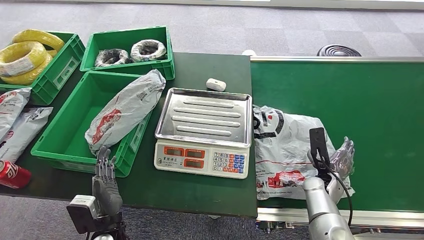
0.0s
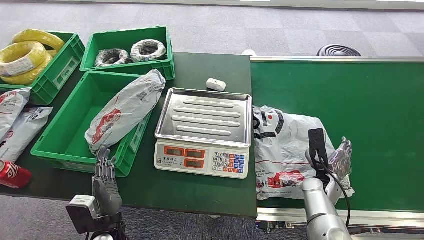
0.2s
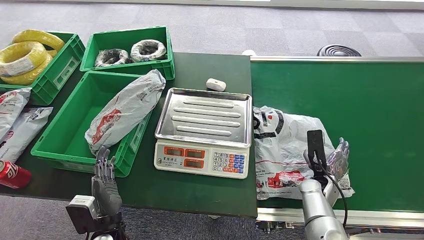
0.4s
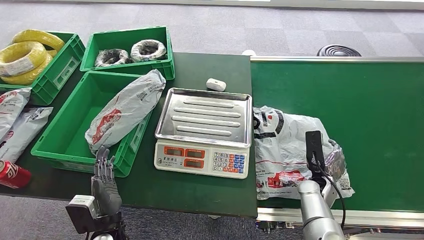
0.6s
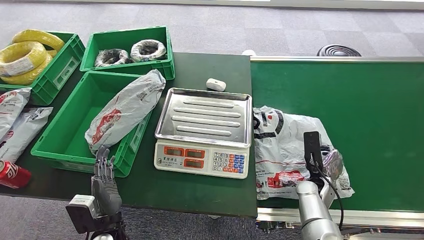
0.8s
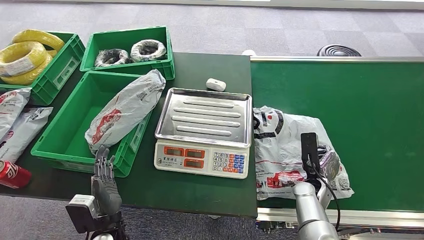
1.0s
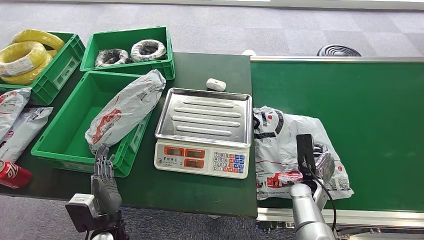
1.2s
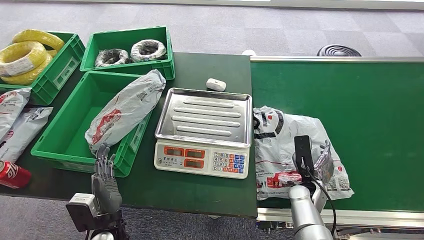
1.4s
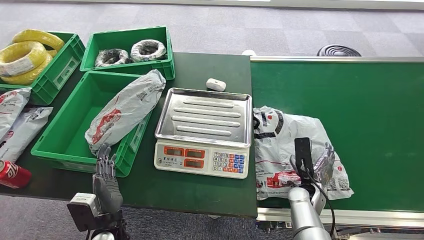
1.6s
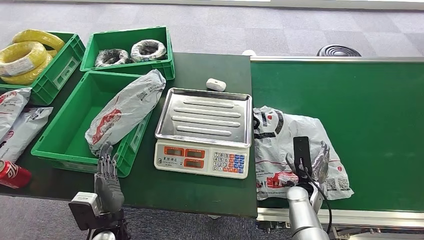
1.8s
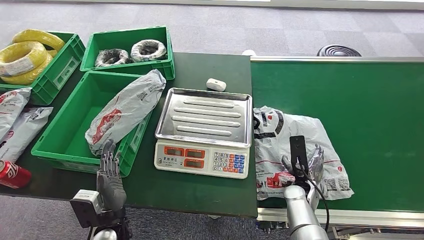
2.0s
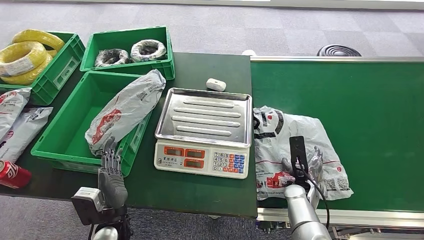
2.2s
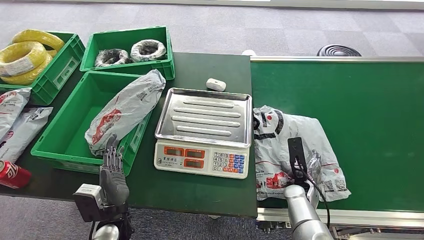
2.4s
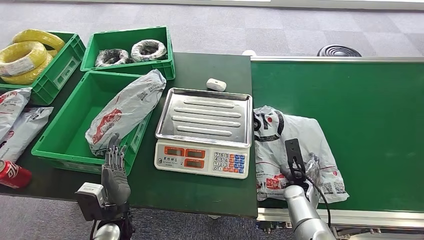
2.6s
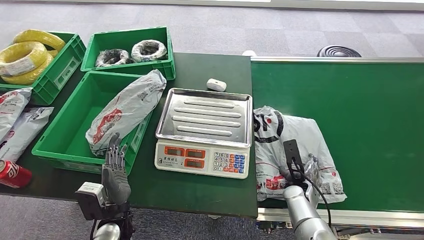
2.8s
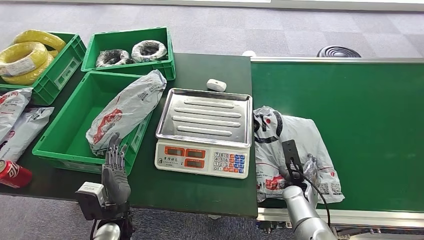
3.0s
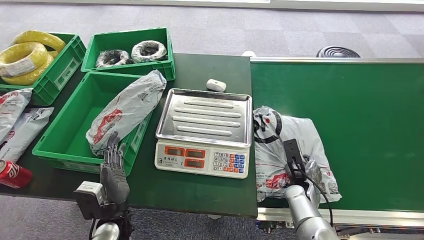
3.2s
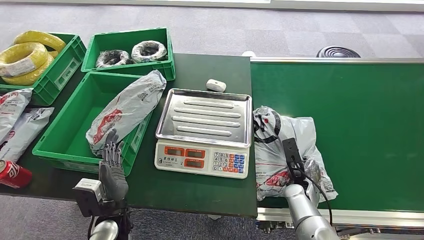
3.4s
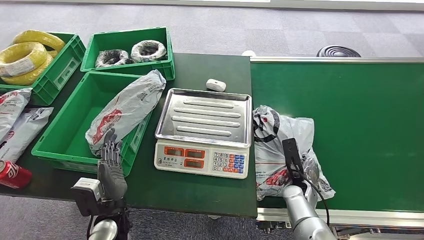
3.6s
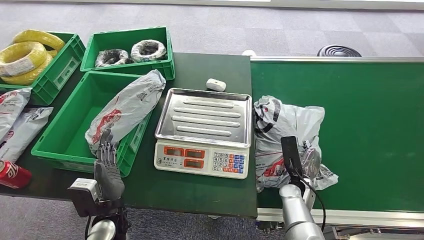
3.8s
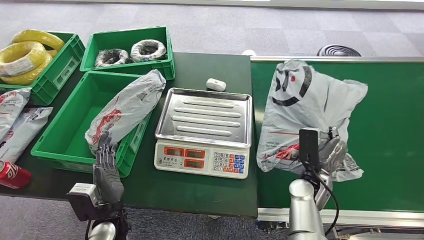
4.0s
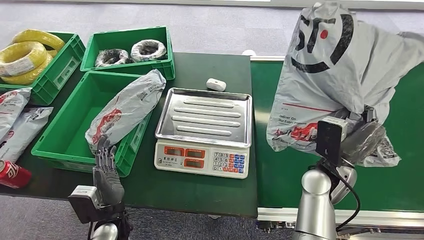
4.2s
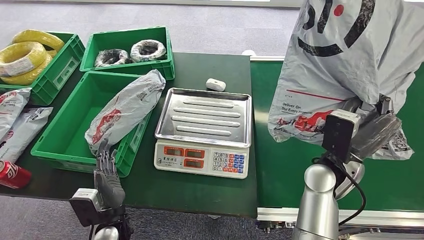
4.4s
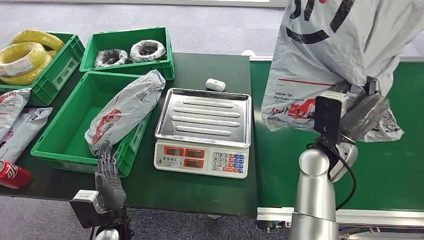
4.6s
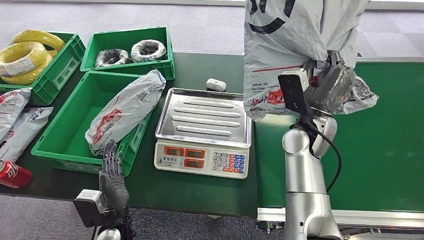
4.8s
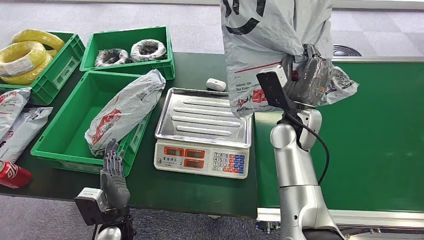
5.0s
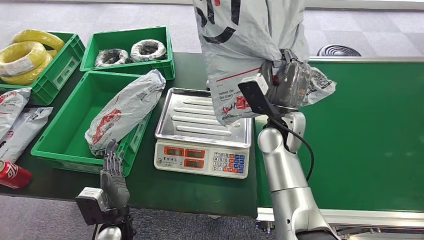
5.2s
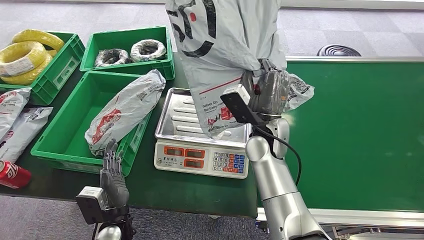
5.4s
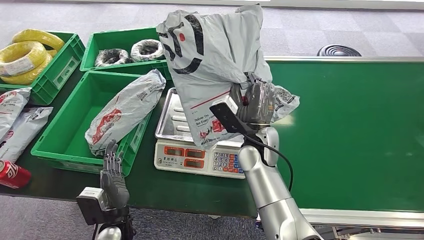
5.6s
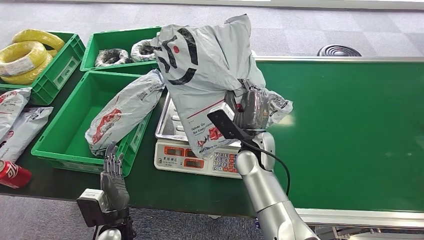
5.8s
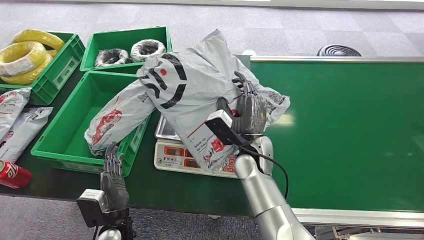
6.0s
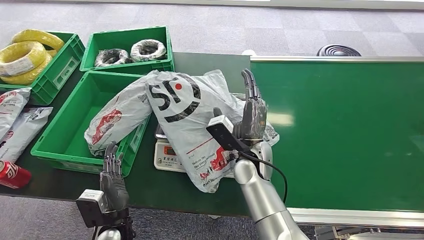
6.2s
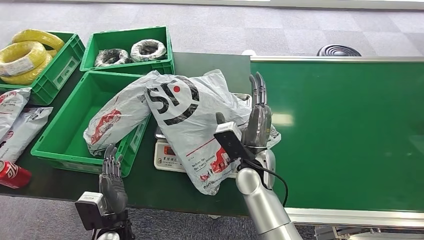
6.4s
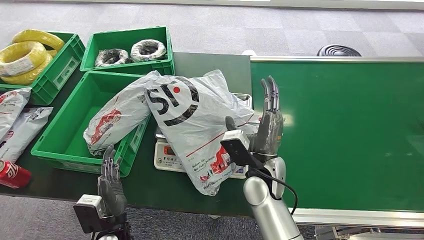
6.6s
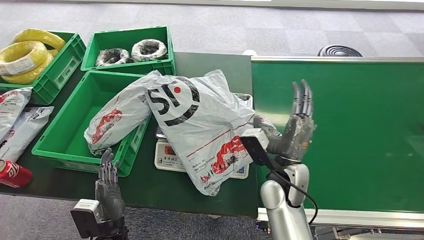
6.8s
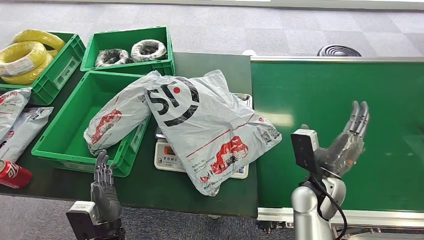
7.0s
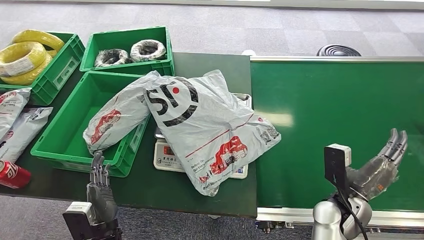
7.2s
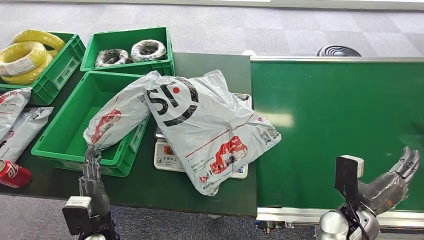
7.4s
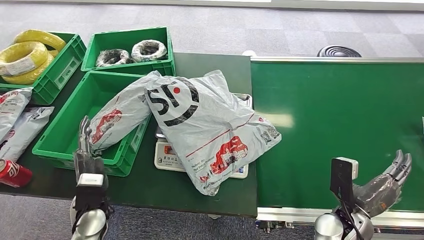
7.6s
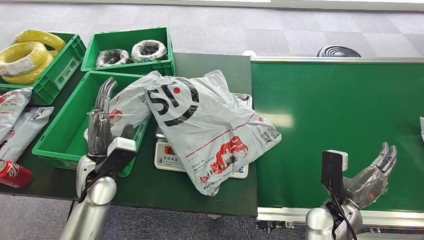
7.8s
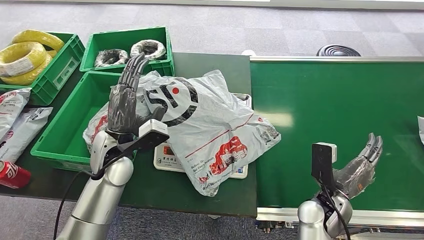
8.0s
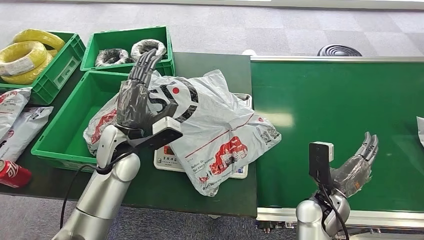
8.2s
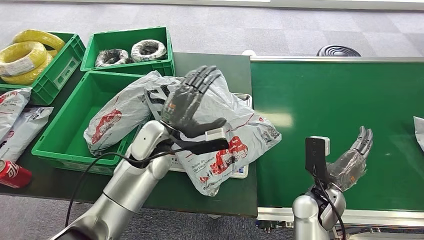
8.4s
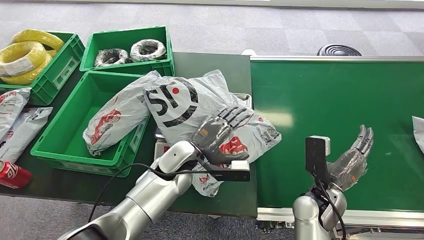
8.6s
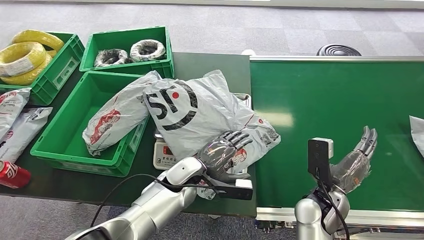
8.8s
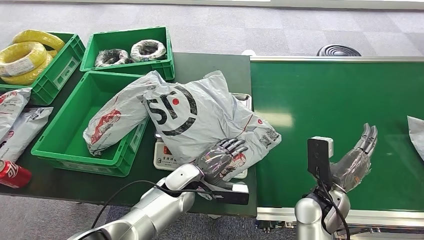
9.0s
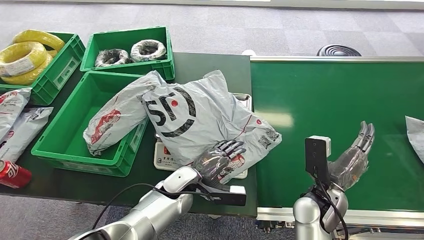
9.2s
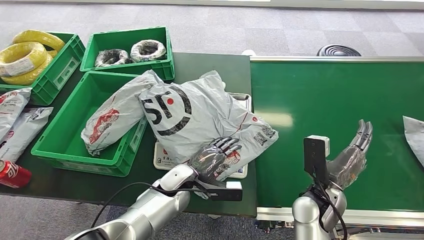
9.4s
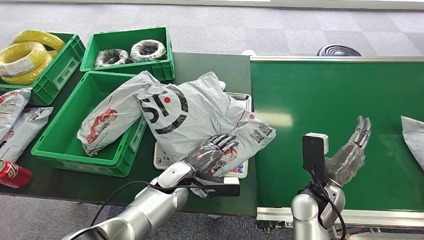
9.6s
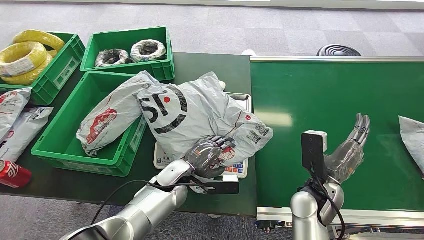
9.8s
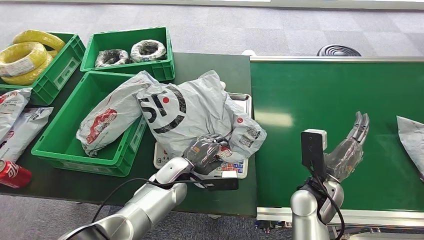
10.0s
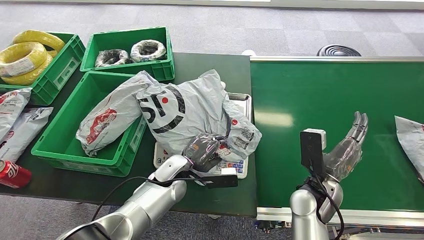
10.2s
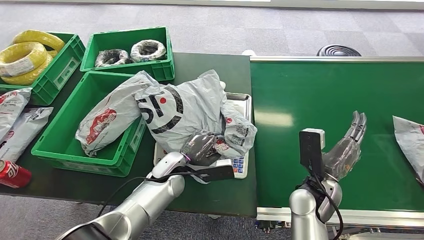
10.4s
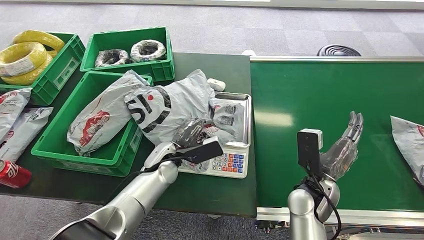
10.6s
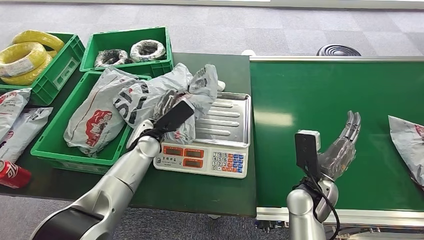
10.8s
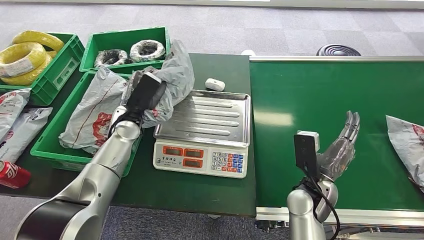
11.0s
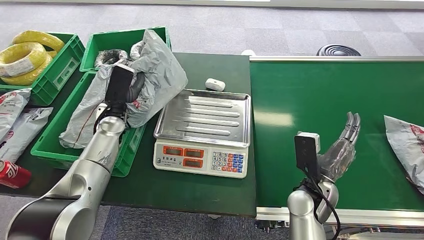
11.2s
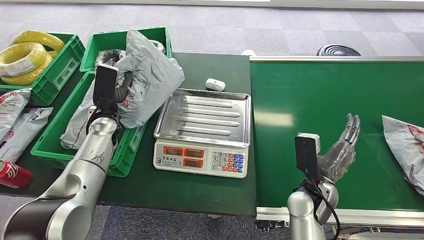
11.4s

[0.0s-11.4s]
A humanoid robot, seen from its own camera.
Task of the whole recording: Weigh the package on the weighing device and place it in the left basket.
Step, 0.0s to 4.2s: Pick up the package from the conveyor belt.
Step, 4.4s to 6.6s: Place the package onto the inbound machine.
Step, 7.0s to 11.2s: Pick up the package from the inbound machine.
0.0s to 1.4s: The right hand moves about 5 cm.
7.2s to 8.6s: The left hand shifts roughly 25 cm forward, to the right and upward.

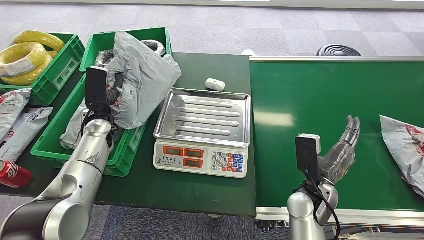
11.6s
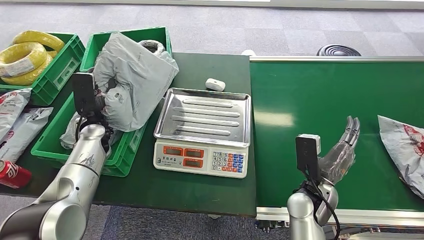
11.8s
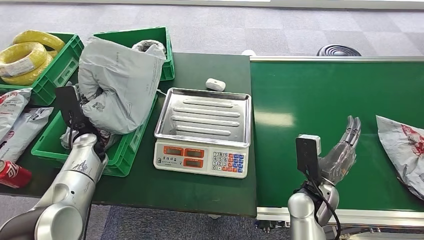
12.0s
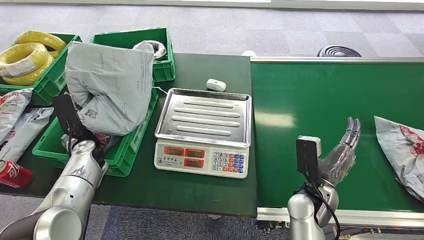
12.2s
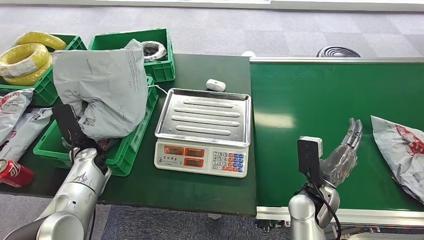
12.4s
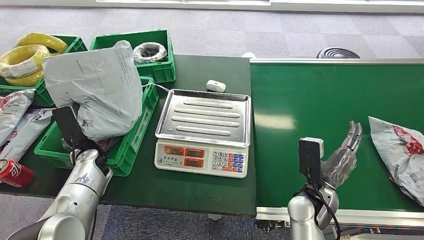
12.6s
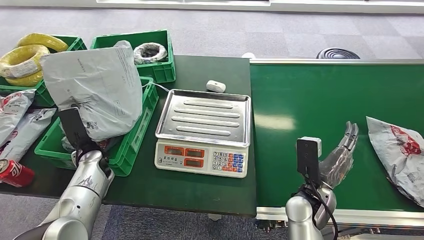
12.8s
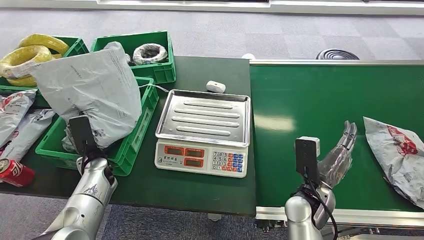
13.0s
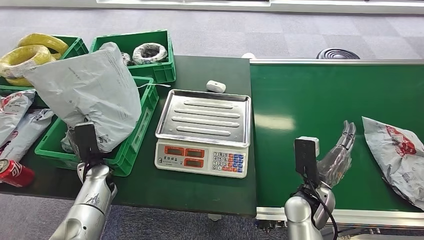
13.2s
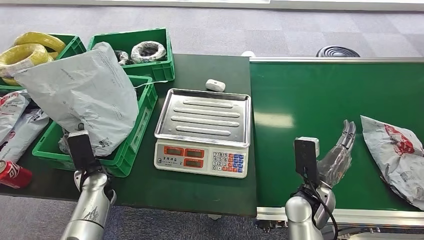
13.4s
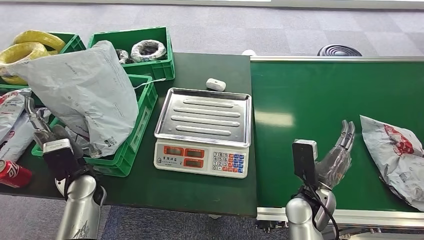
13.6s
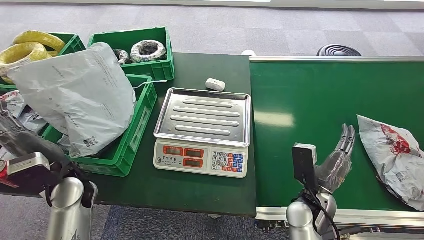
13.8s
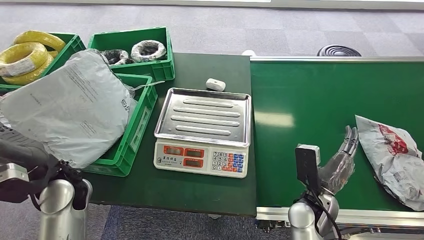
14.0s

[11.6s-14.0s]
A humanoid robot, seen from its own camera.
Task of the whole recording: Weigh the package on the weighing device and place it in the left basket.
Step, 11.6s to 14.0s: Place the package into the parcel locker.
